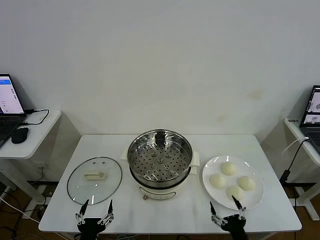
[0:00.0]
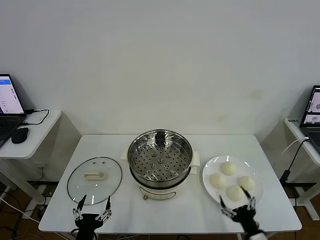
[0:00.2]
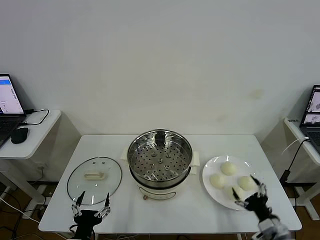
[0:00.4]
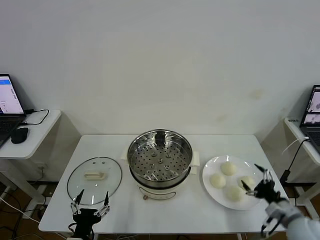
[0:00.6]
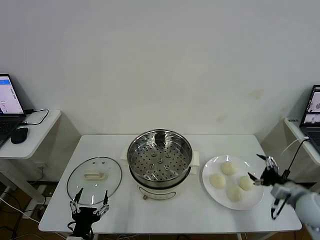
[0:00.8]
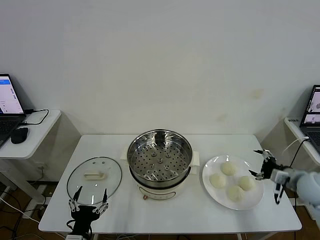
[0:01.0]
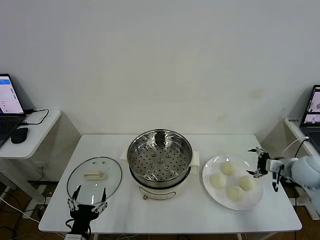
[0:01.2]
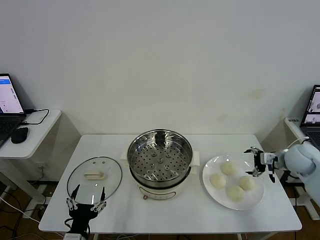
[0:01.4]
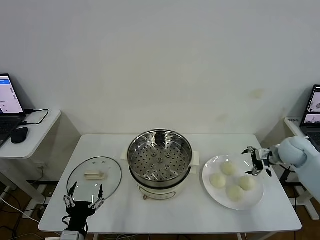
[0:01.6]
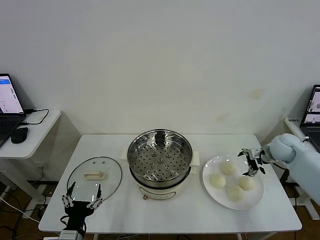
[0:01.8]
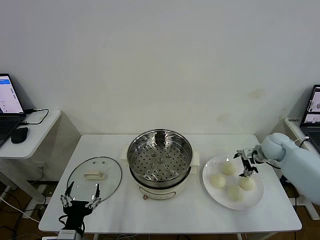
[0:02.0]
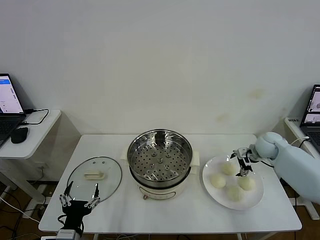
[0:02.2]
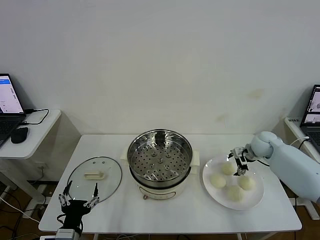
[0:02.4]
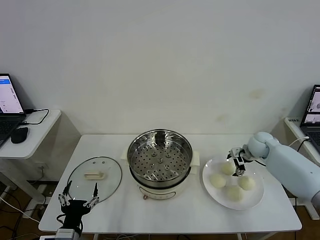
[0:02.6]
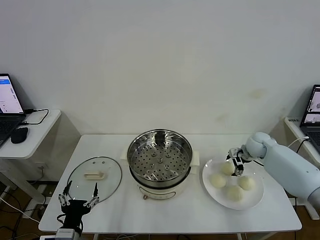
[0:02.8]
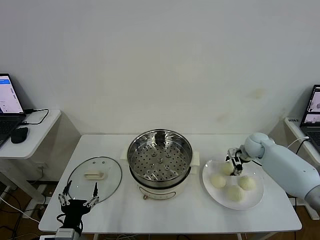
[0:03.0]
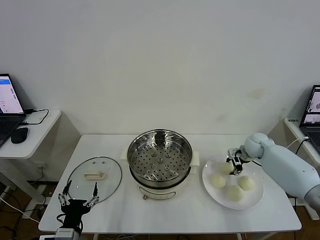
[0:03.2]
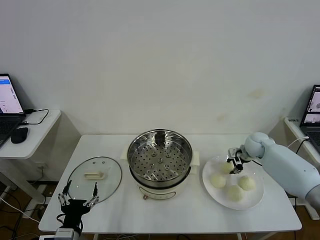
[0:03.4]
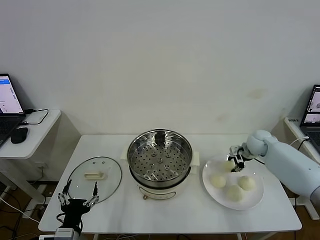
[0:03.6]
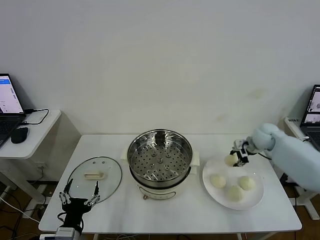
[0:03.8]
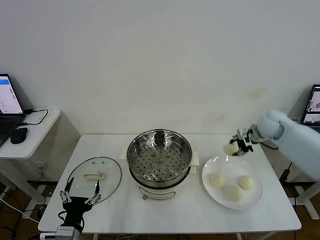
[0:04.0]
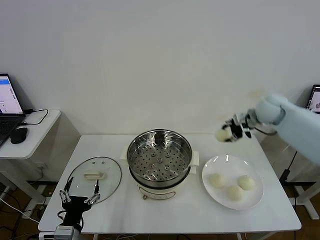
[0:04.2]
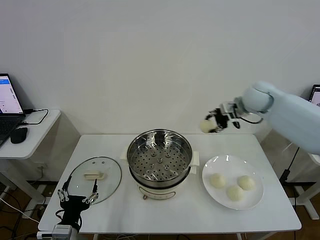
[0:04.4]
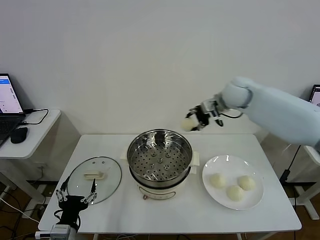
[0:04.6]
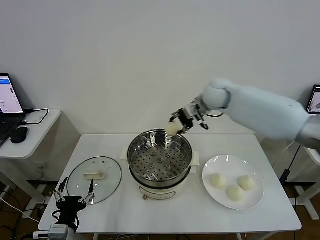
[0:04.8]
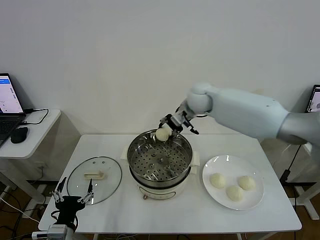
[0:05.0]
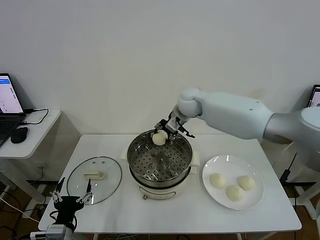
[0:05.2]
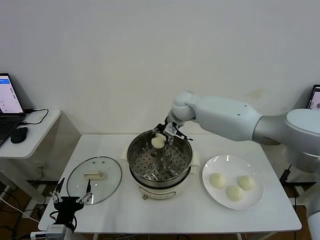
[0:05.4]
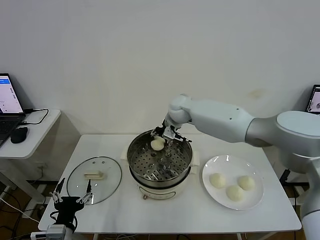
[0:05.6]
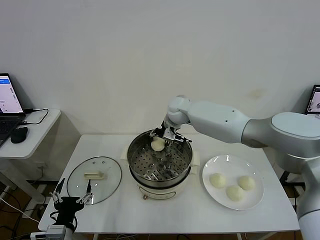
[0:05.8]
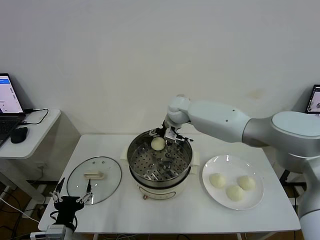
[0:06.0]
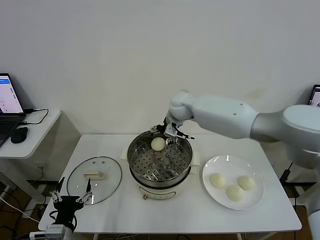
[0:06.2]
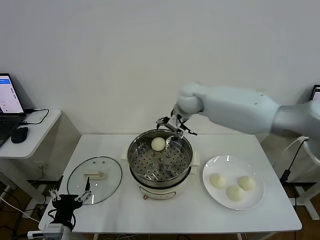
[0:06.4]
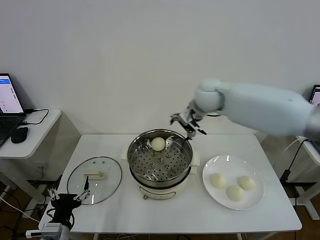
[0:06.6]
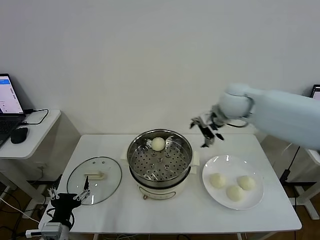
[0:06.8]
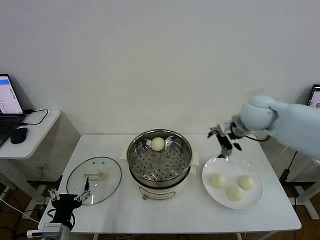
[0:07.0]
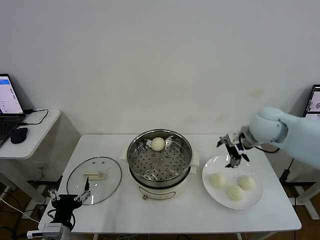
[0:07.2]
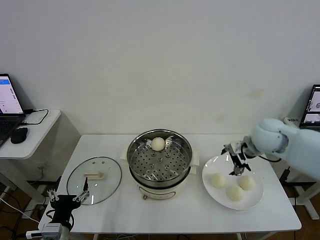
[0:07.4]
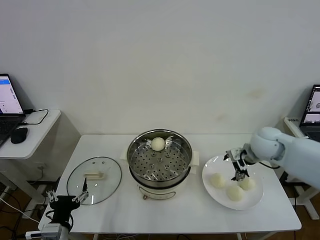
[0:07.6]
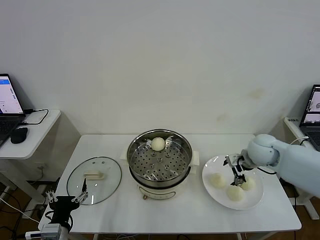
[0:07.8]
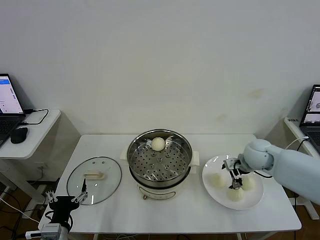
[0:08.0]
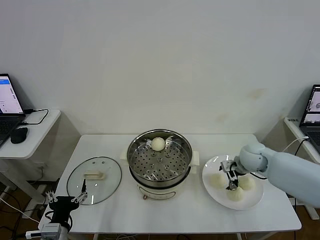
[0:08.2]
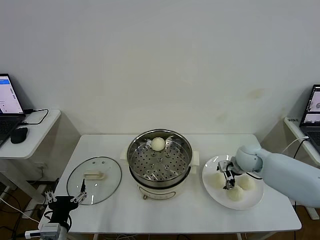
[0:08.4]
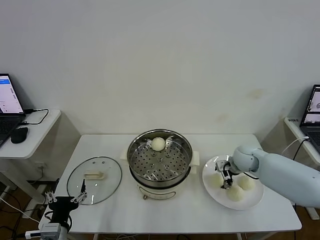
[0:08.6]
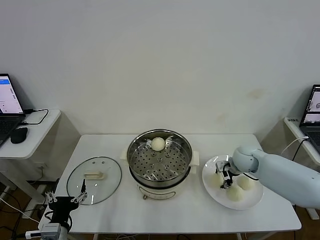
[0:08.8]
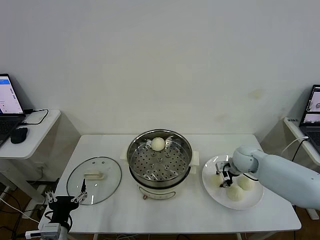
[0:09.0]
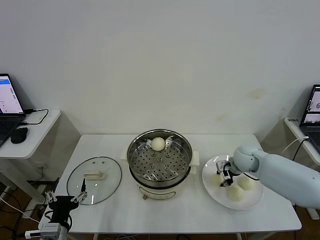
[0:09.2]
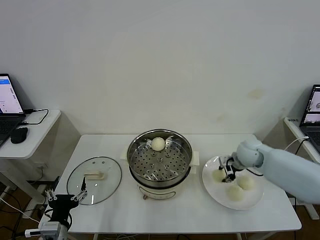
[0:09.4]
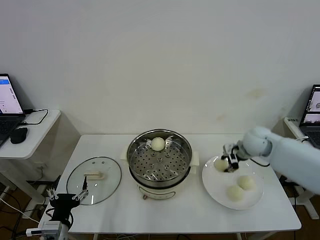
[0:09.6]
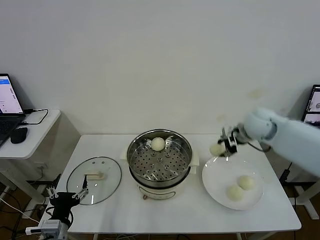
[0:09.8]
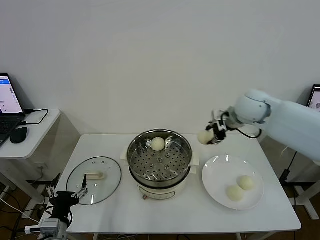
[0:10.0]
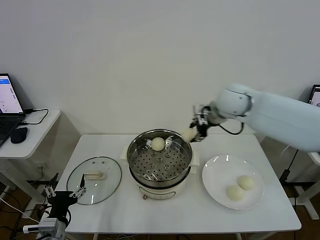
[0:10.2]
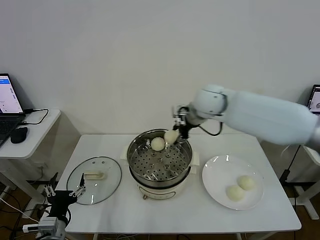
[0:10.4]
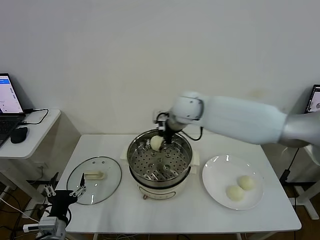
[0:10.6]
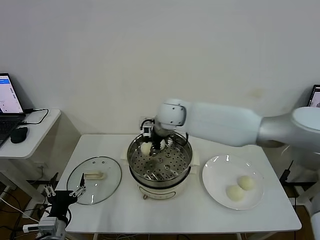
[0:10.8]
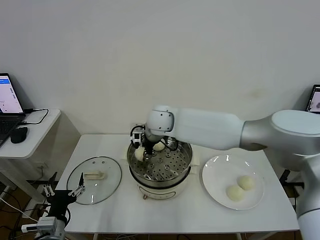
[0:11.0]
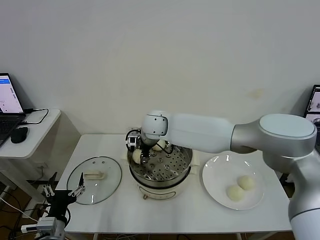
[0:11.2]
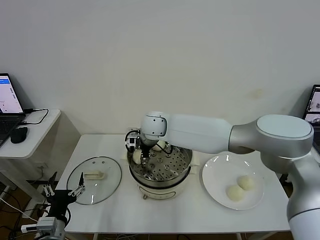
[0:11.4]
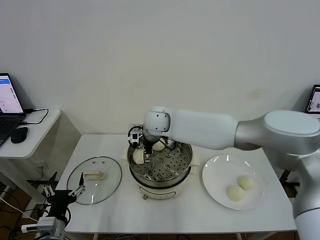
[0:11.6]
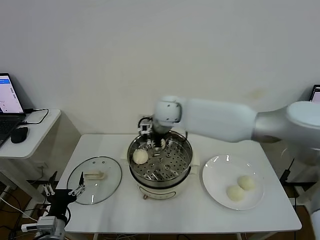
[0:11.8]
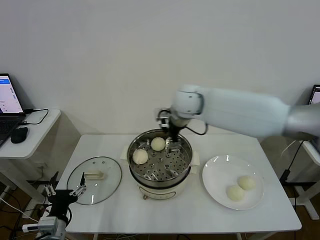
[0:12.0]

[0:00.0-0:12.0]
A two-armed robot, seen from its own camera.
Task of the whole recording: take steamed baozi put them in steamer then cover it.
Step, 0:00.0 to 0:03.0: Grasp the baozi in the plate with right gripper.
Step, 0:03.2 to 0:06.0: Place the baozi on the steamer with right gripper.
Step, 0:06.2 to 0:09.0: Grasp the baozi in the plate with right gripper.
Step, 0:09.2 to 0:11.6: Place the baozi on the steamer with right gripper.
0:01.6 to 0:03.0: The right gripper moves to the left, forward and downward, roughly 10 cm, and closes up.
0:03.0 to 0:04.4: The right gripper is displaced upward and to the left by roughly 25 cm.
0:04.4 to 0:06.0: The right gripper moves to the left, roughly 15 cm, and opens.
0:06.0 to 0:07.6: The right gripper is displaced to the right and backward by about 30 cm.
0:07.6 to 0:09.0: The right gripper shifts approximately 10 cm downward, and closes.
0:09.0 to 0:10.4: The right gripper is displaced to the left and upward by about 30 cm.
0:10.4 to 0:12.0: The right gripper goes to the left and returns, some 10 cm each way, and opens its fingers.

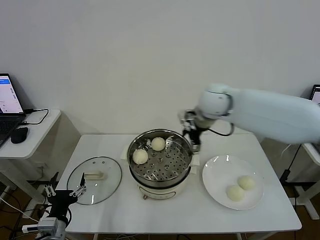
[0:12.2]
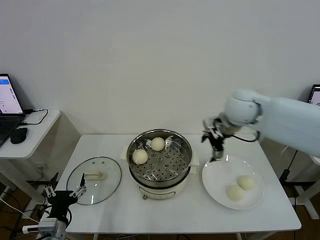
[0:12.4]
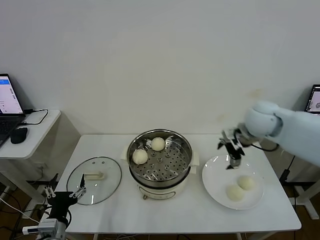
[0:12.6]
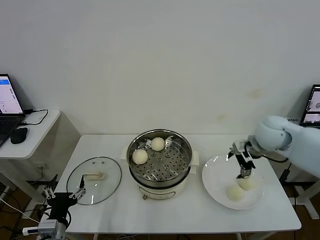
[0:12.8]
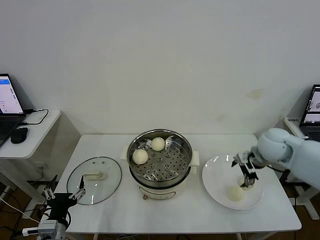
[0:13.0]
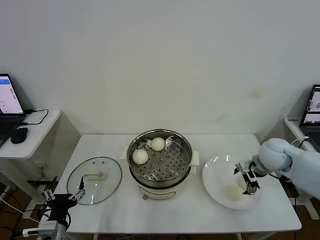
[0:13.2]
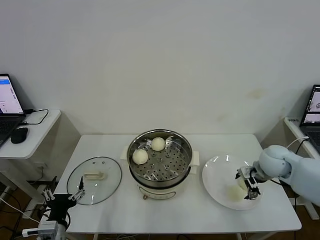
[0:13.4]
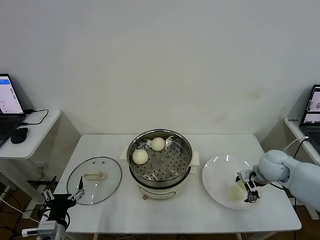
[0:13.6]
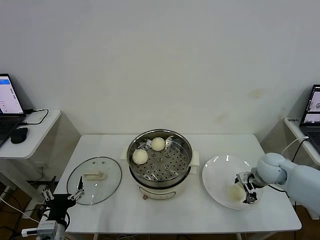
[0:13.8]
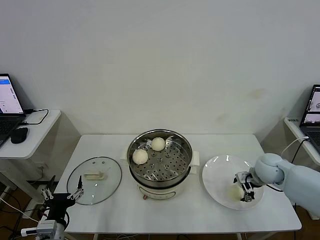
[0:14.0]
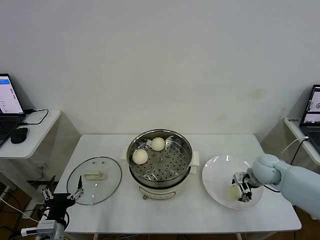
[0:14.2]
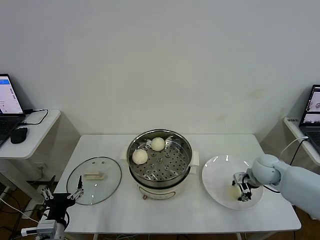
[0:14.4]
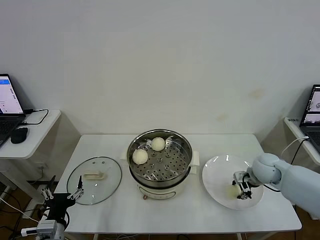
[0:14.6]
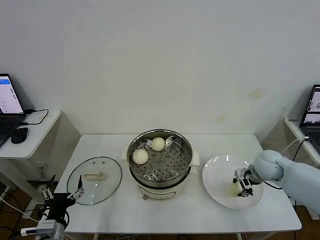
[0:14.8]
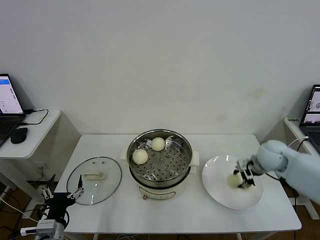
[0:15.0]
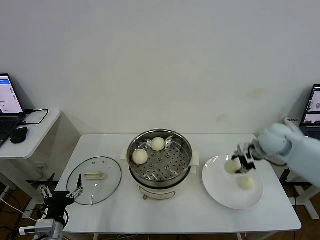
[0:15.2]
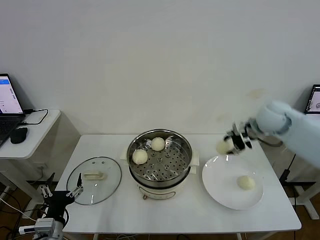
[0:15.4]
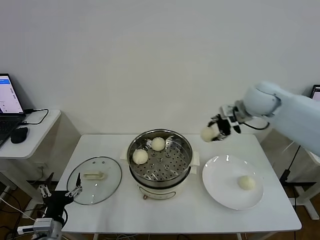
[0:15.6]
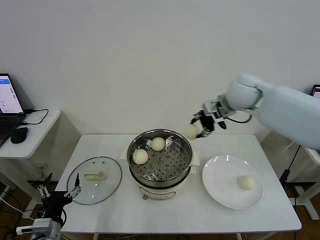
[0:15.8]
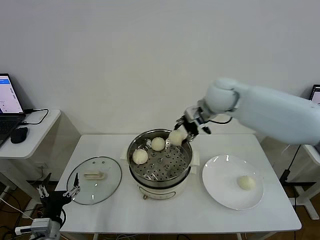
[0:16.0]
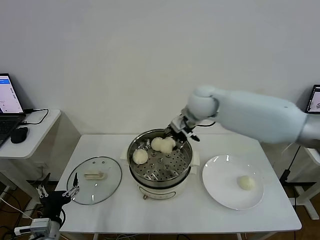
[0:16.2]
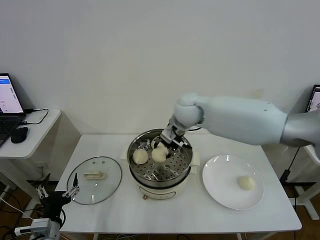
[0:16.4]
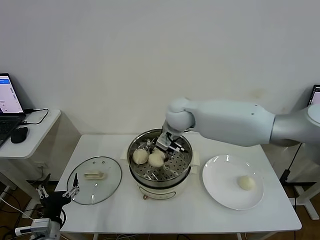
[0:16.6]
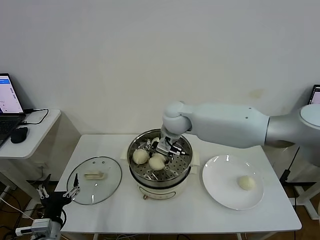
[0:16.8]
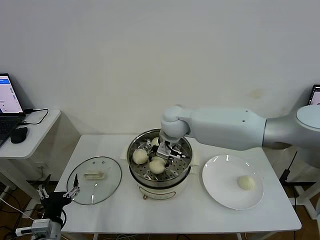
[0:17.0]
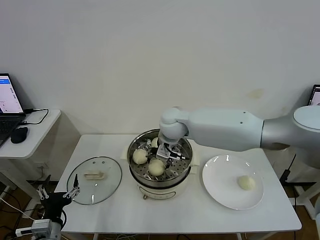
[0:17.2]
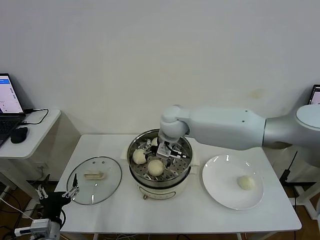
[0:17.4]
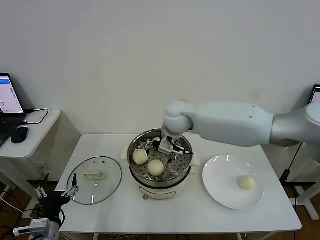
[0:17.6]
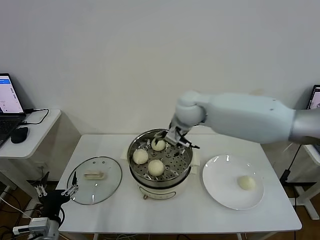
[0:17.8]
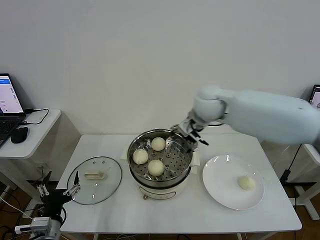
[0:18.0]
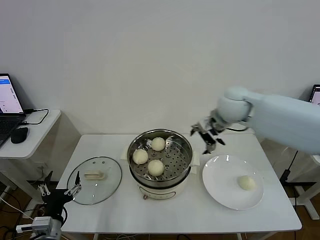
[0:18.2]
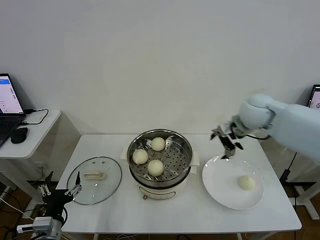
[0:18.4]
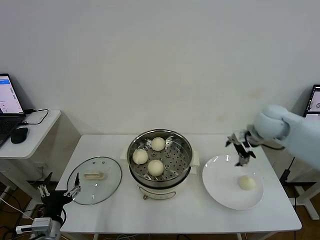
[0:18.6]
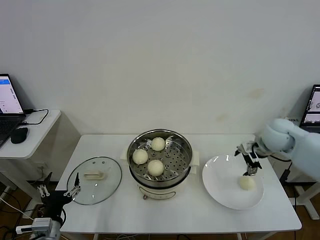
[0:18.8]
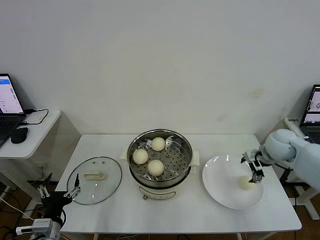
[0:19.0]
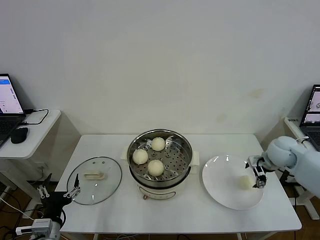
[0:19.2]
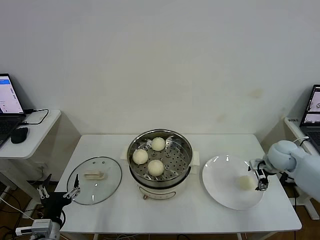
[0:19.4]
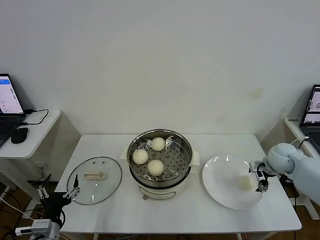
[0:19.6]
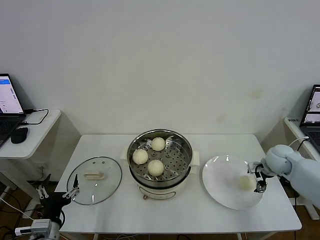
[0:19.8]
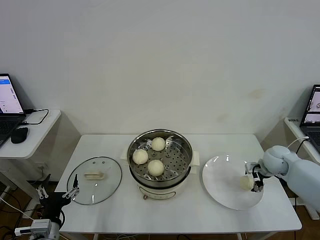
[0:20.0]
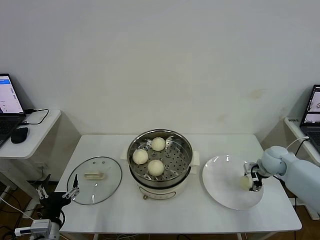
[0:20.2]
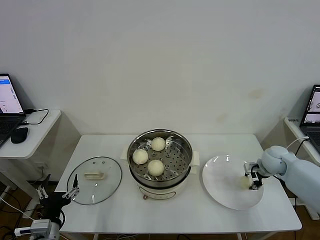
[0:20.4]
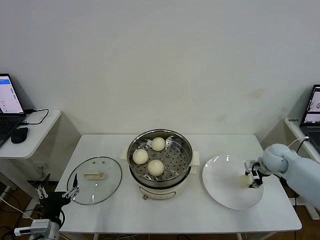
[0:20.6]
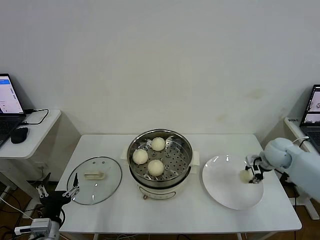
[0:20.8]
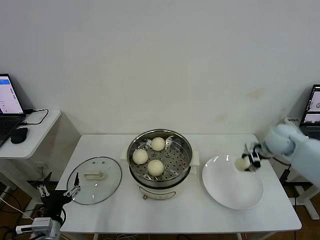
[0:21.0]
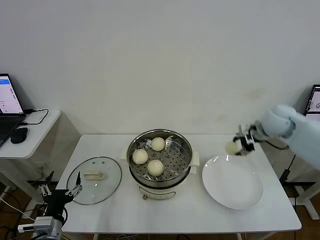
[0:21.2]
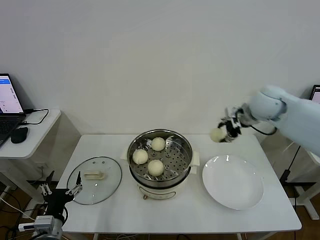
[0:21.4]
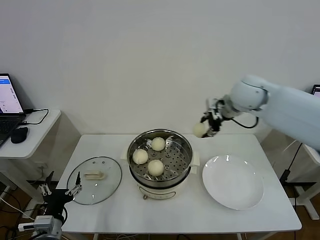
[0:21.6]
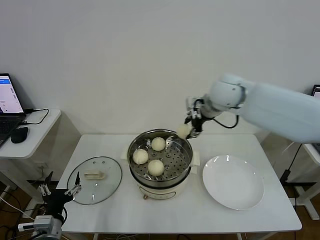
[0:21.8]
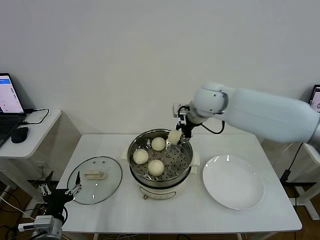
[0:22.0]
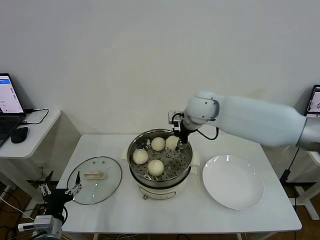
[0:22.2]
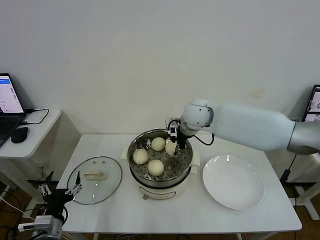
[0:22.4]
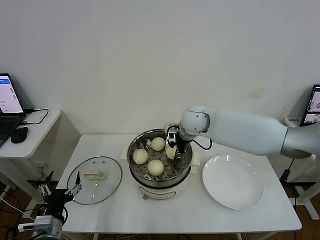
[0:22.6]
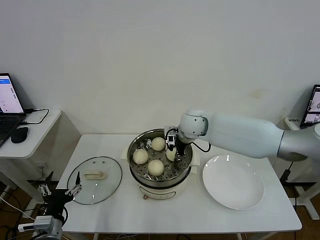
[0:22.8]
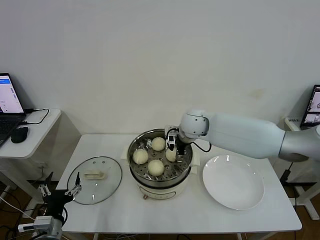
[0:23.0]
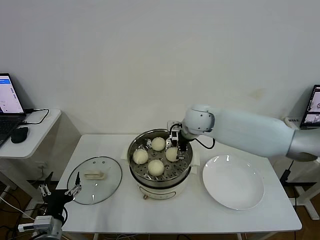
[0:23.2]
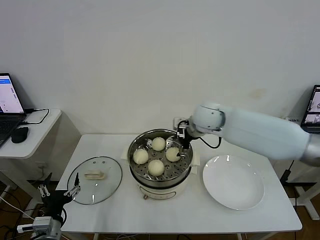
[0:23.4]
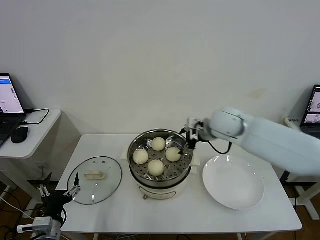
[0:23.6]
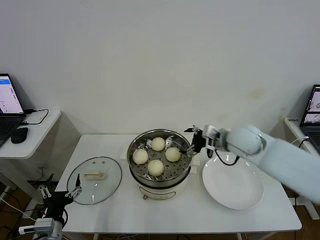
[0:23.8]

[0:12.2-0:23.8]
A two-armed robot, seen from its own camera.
Task of the whole recording: take steamed baozi put them in steamer then cover it.
Step, 0:12.2 to 0:14.4: Grasp the baozi in the plate with right gripper.
Step, 0:14.6 to 0:17.4: Place the baozi on the steamer with right gripper.
Step, 0:17.8 to 0:20.4: Grasp the baozi in the plate with right gripper.
Step, 0:20.6 to 0:23.2: Place the baozi on the steamer with right gripper.
0:12.2 to 0:13.6: The right gripper is displaced downward, to the right and backward by approximately 25 cm.
0:13.6 to 0:15.0: The right gripper heads upward, covering some 5 cm, and closes up.
0:15.0 to 0:16.6: The right gripper shifts some 30 cm to the left.
0:16.6 to 0:18.0: The right gripper is displaced to the right and upward by about 15 cm, and opens.
0:18.0 to 0:19.4: The right gripper heads to the right and downward, covering about 30 cm.
0:19.4 to 0:21.0: The right gripper shifts some 5 cm upward, and closes its fingers.
0:21.0 to 0:22.4: The right gripper is displaced to the left by roughly 30 cm.
0:22.4 to 0:23.8: The right gripper shifts some 15 cm to the right and backward, and opens.
